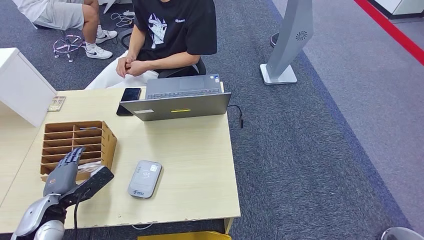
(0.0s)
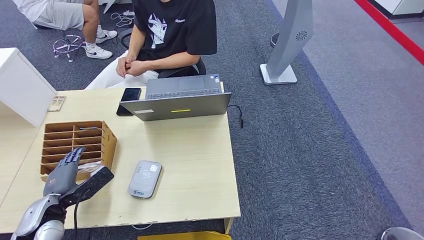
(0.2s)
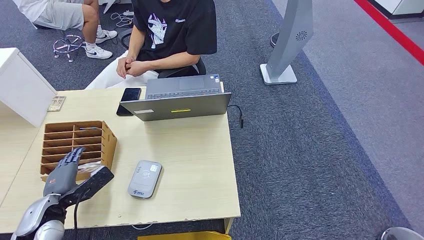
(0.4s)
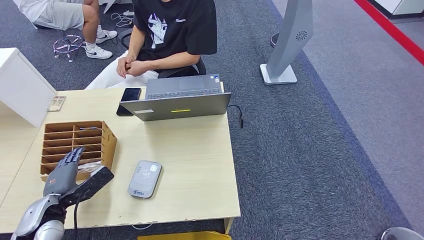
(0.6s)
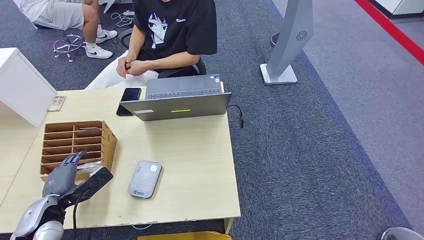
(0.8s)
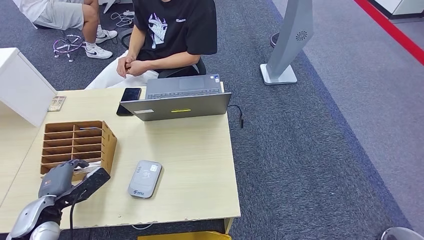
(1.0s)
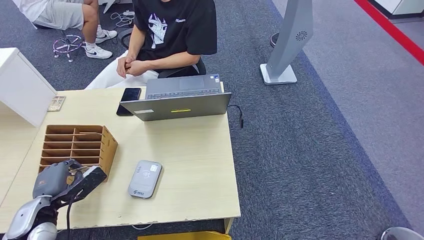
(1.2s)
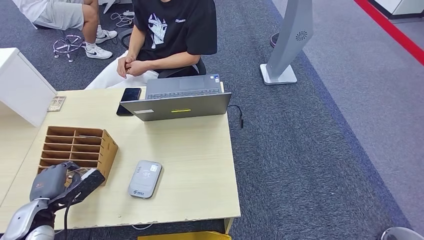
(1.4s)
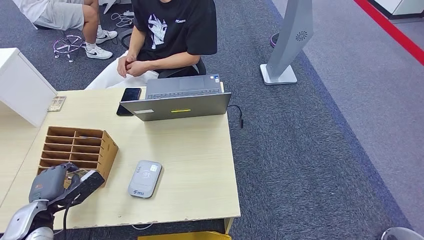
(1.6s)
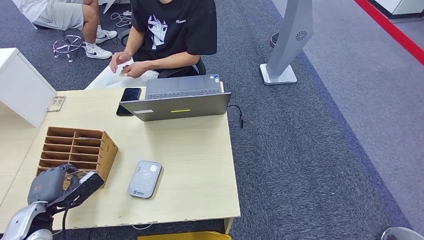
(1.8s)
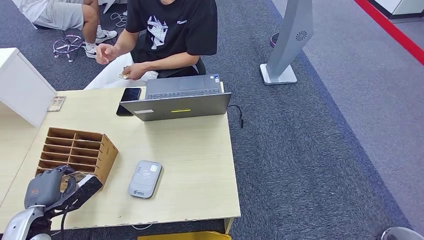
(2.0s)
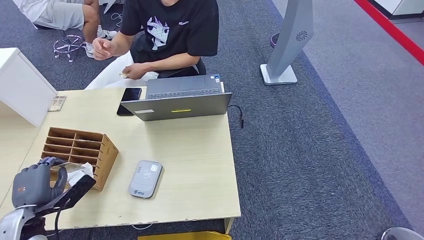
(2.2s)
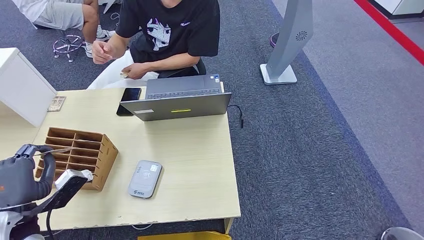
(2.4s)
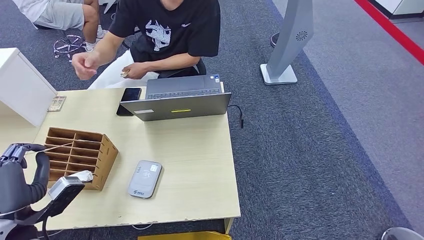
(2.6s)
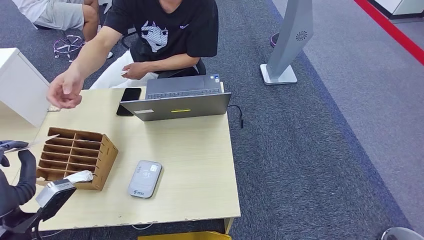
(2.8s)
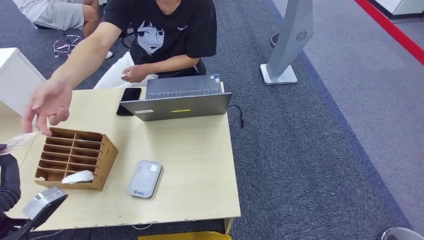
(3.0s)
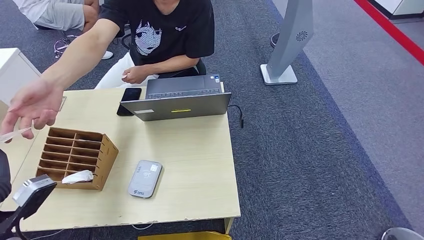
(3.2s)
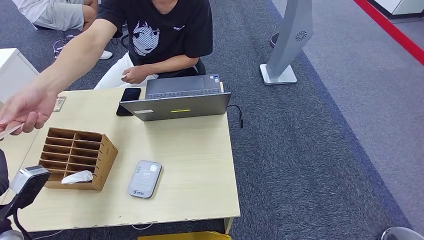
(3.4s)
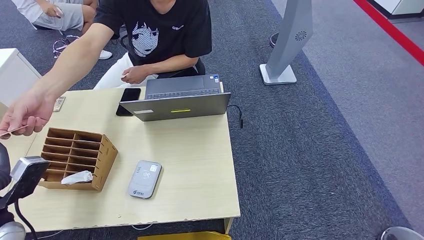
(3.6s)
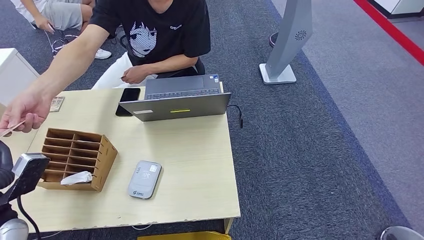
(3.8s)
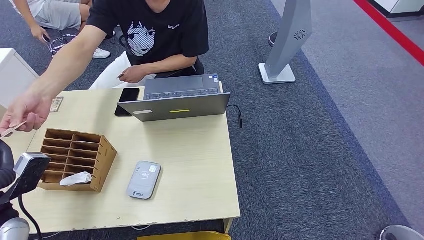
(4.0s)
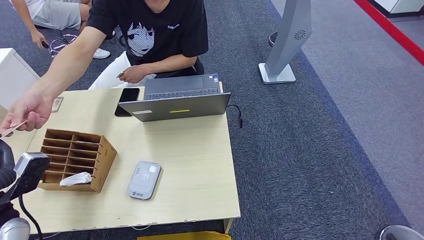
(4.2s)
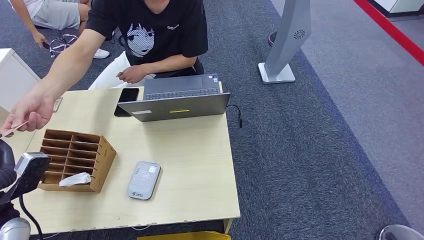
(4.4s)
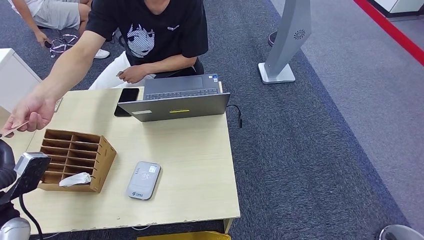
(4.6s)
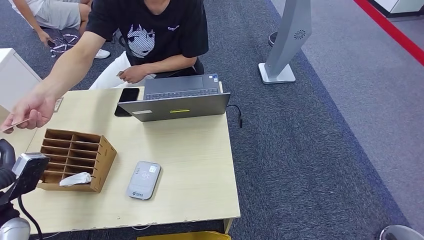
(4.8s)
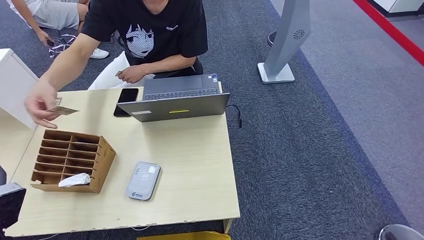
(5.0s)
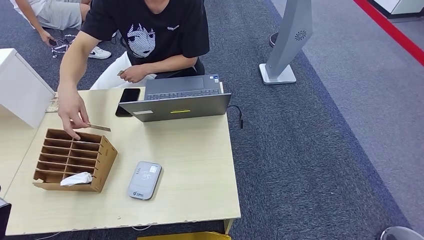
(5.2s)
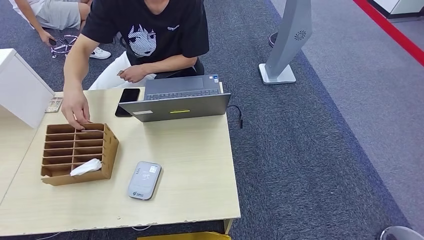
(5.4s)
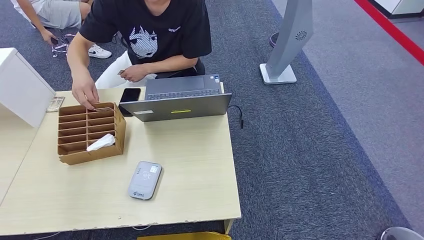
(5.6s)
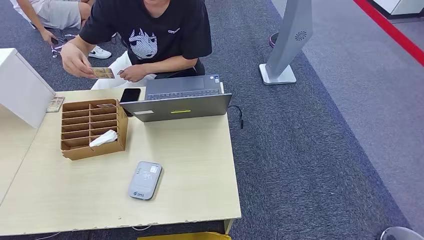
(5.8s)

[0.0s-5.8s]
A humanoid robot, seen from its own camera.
Step, 0.0s to 2.2s: Pick up the room key from the key card box.
Step, 2.4s to 5.6s: Hand the room key to the person.
1.4s to 2.8s: The left hand travels upward by some 10 cm.
4.4s to 5.8s: The left hand goes about 15 cm backward.
